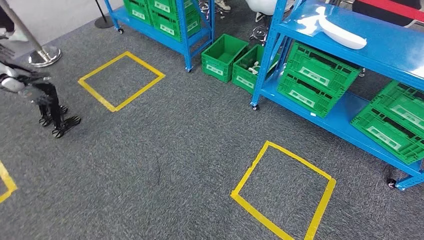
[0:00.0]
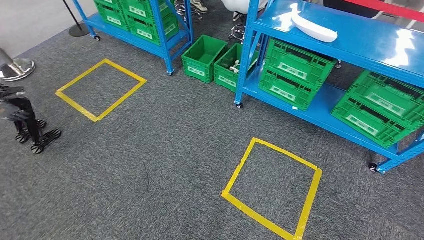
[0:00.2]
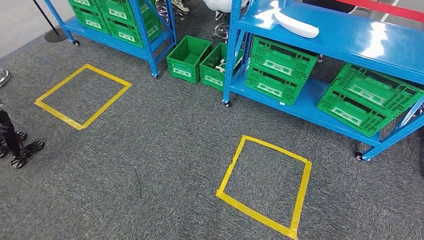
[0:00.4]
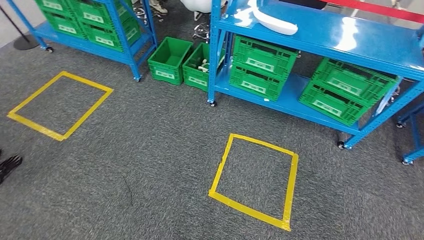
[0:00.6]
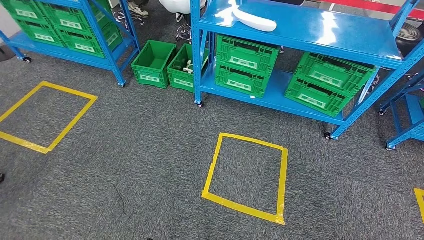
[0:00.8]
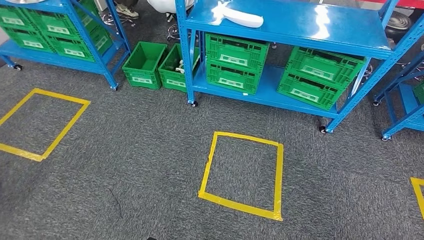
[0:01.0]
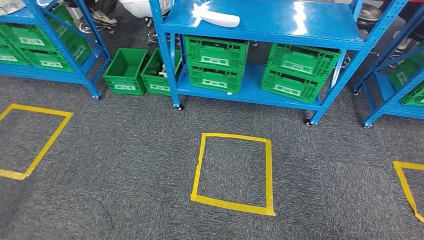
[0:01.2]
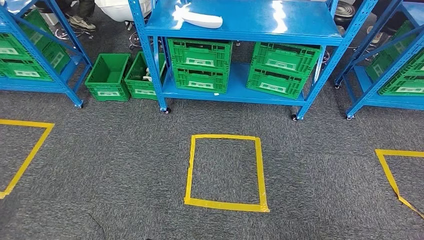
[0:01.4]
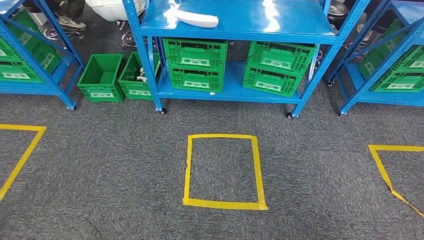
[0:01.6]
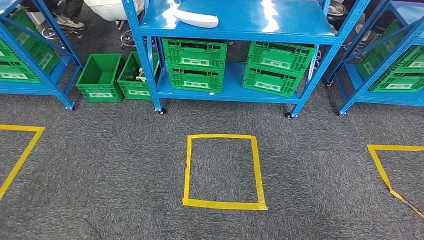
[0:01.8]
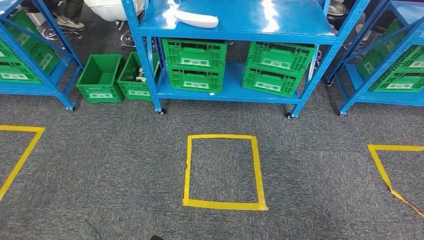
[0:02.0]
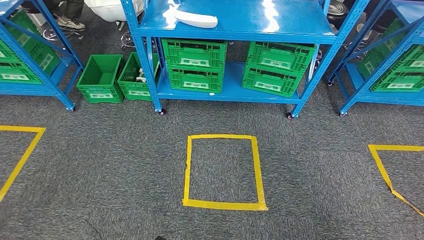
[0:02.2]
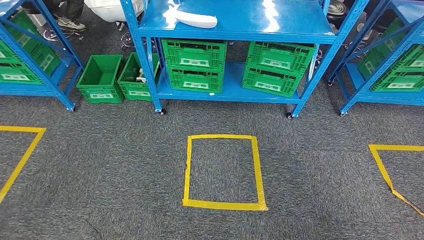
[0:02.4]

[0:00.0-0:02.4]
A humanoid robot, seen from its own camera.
Step, 0:00.0 to 0:02.4: Return to the initial position at the workbench.
